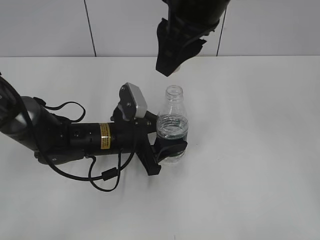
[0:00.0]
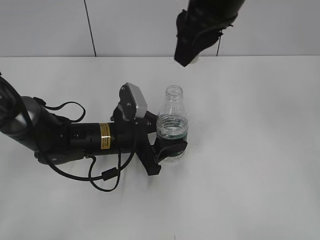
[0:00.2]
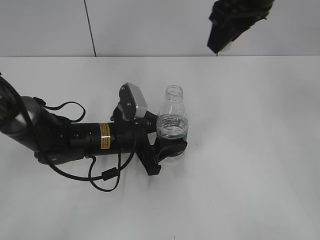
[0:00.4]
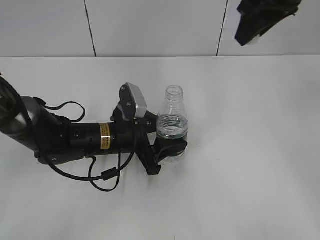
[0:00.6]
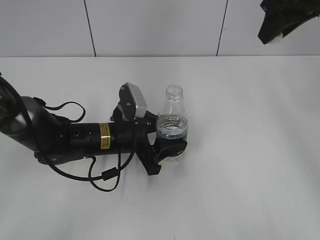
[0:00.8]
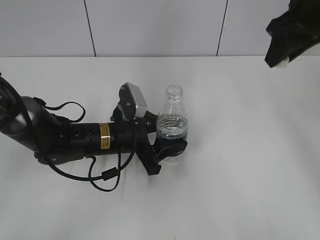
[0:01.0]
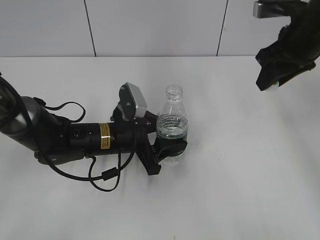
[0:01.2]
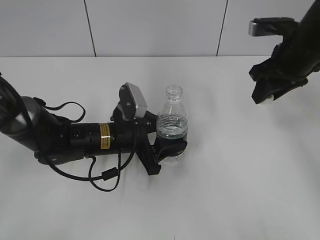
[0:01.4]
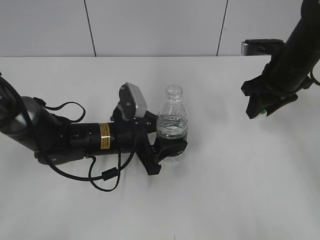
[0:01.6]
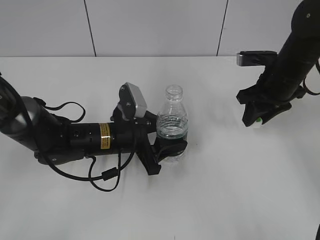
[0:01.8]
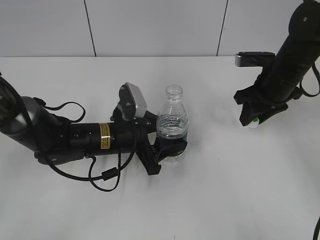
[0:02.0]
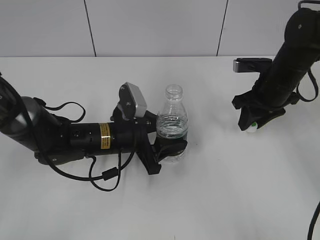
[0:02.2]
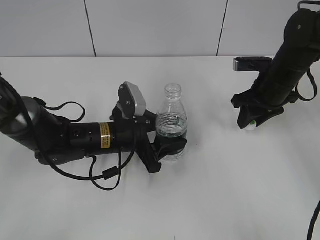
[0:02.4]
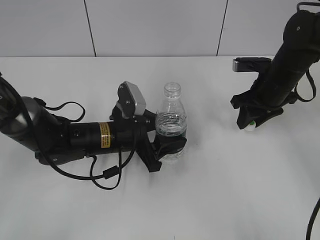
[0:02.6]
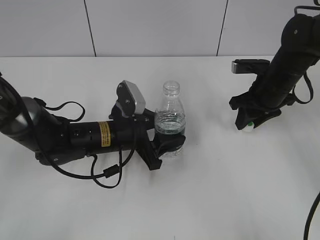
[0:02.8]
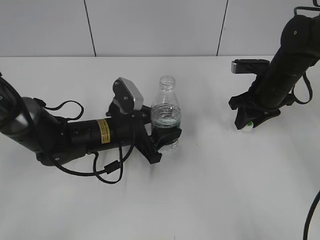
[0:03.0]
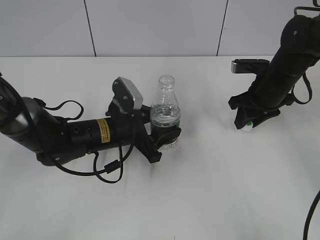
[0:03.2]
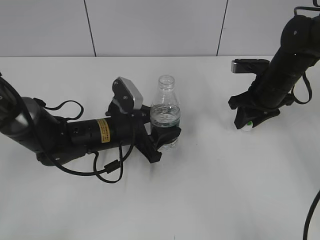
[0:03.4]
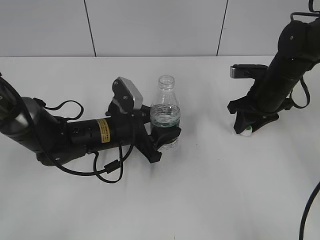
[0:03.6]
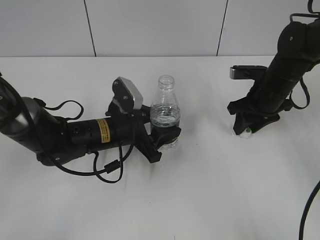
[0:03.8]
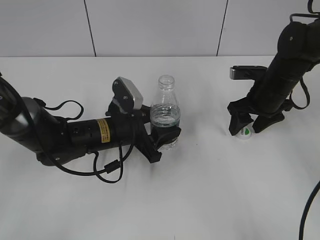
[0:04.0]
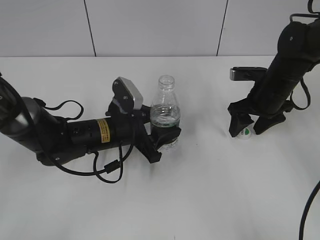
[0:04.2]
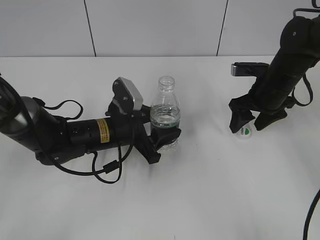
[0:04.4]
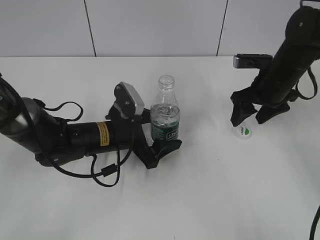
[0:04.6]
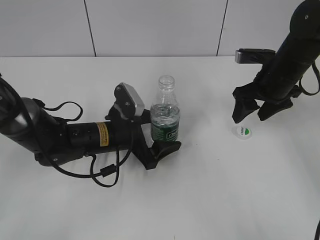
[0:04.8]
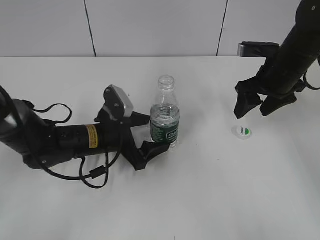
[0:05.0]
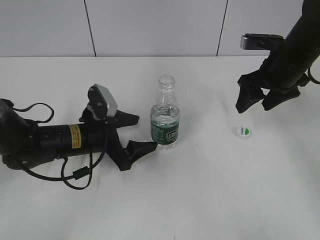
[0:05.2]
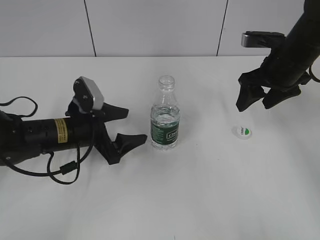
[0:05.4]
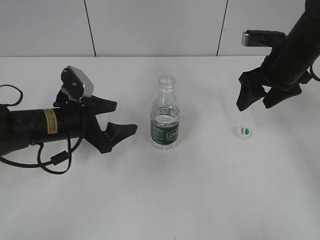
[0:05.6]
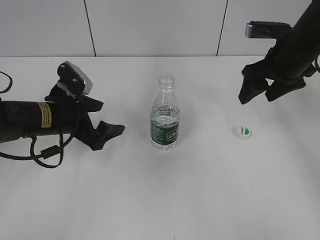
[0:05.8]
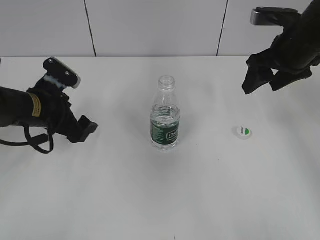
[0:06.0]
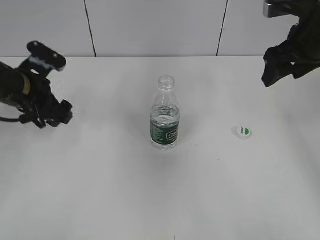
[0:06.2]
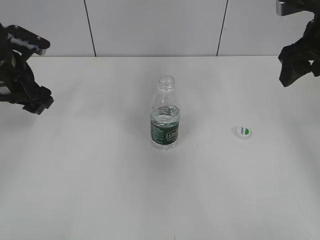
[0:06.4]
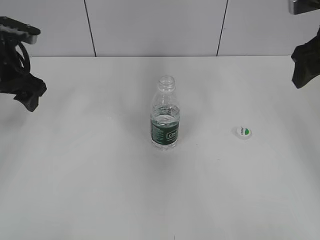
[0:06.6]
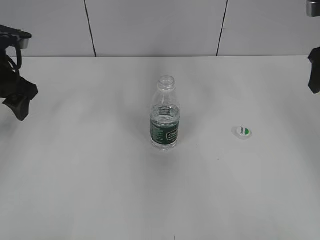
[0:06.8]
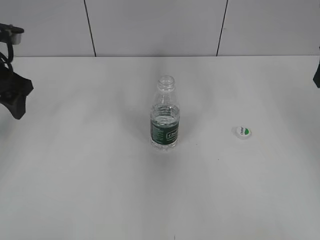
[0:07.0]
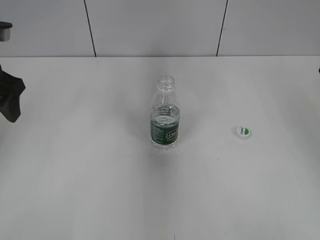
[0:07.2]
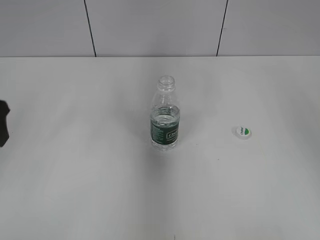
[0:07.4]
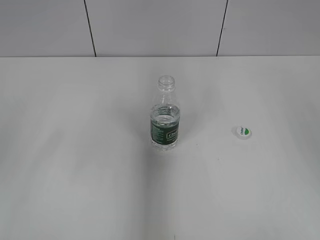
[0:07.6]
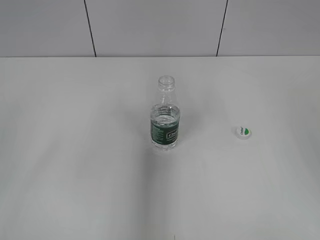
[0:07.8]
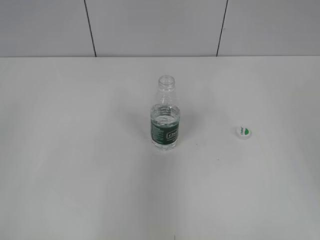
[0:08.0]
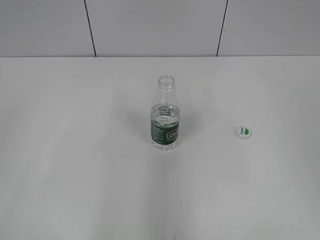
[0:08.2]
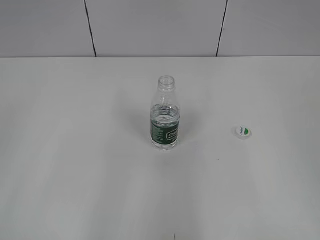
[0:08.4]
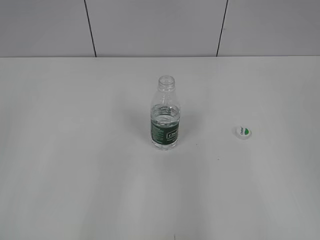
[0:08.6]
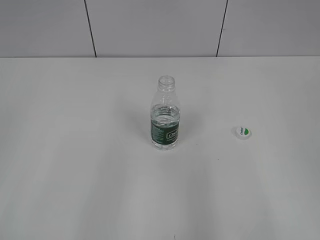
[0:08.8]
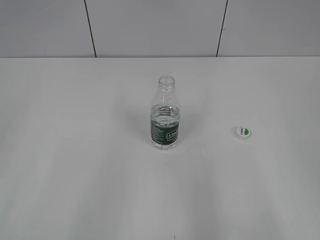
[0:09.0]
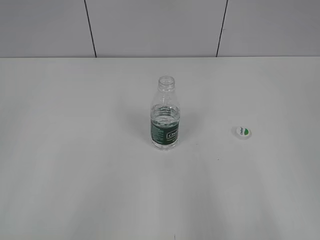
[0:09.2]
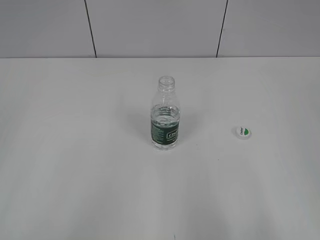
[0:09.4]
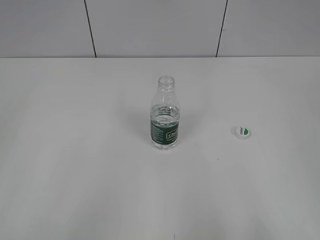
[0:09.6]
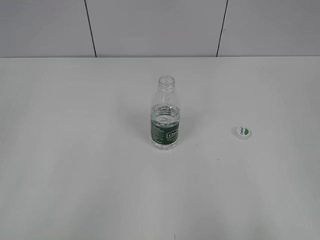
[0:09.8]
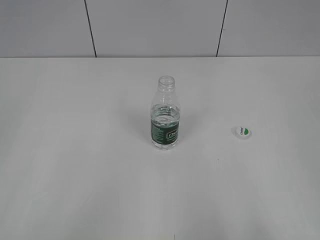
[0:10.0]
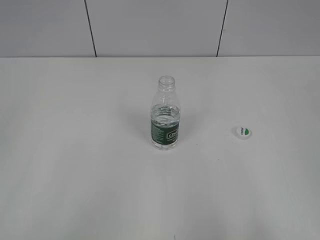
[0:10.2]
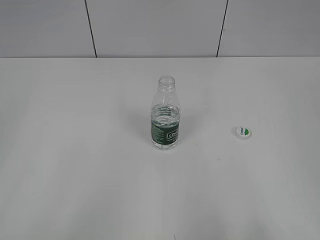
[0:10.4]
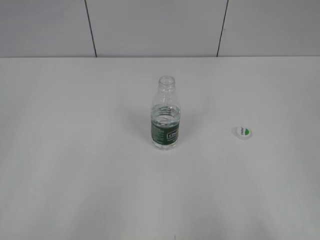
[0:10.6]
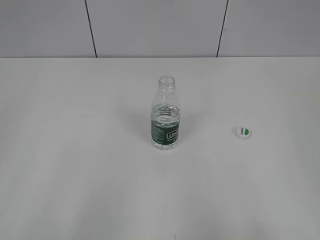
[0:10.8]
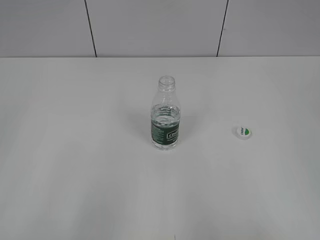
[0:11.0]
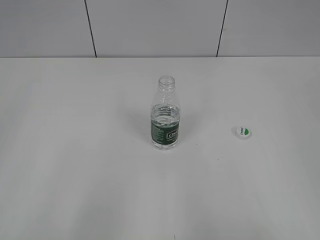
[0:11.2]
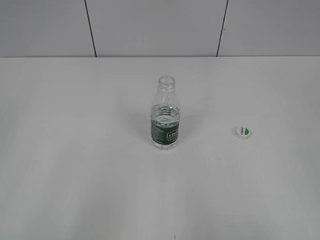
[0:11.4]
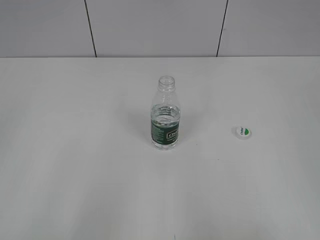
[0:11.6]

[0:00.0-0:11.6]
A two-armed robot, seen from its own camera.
0:00.0 to 0:01.4: The right gripper heads to the right, downward and forward, covering approximately 20 cm.
0:01.4 to 0:02.8: The right gripper goes roughly 10 cm downward.
0:02.8 to 0:04.4: The right gripper opens up.
0:04.4 to 0:05.8: The right gripper goes roughly 10 cm upward, while the left gripper moves to the left, about 10 cm, and opens up.
0:05.8 to 0:07.2: The right gripper heads upward, to the right and backward, covering approximately 15 cm. The left gripper shifts some 15 cm upward and to the left.
0:07.2 to 0:08.8: The grippers both shift backward by roughly 25 cm.

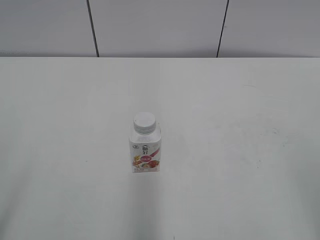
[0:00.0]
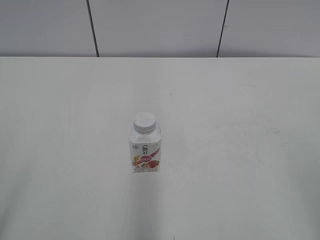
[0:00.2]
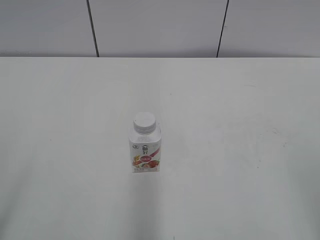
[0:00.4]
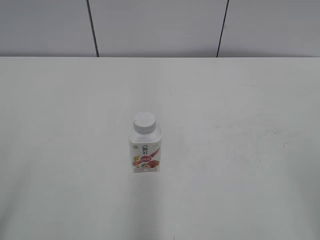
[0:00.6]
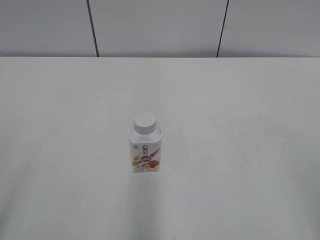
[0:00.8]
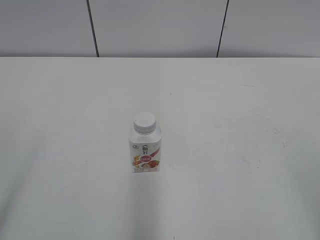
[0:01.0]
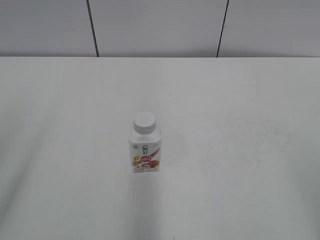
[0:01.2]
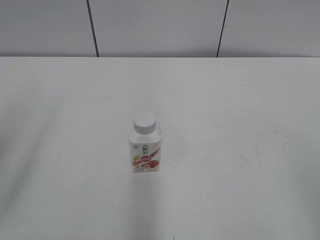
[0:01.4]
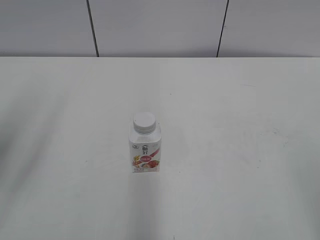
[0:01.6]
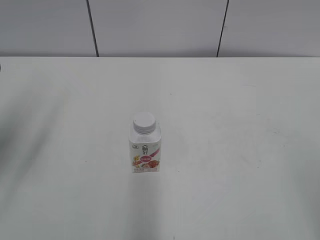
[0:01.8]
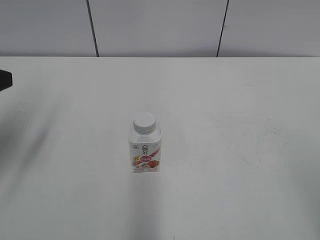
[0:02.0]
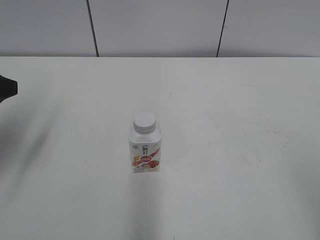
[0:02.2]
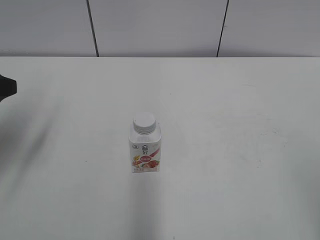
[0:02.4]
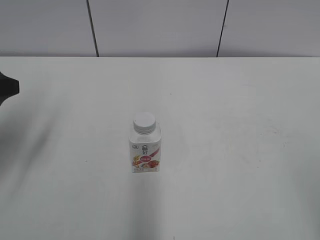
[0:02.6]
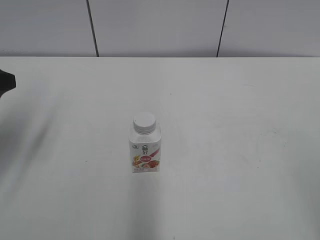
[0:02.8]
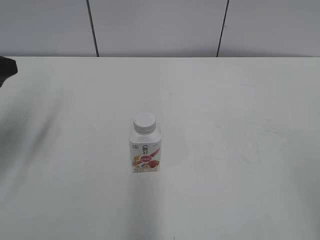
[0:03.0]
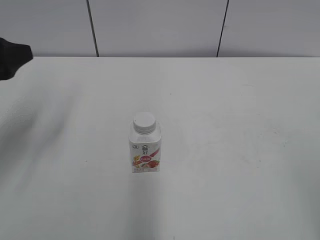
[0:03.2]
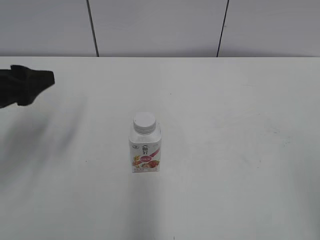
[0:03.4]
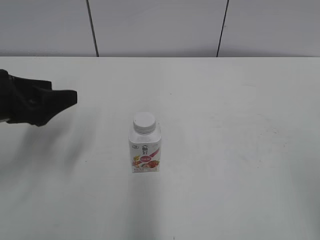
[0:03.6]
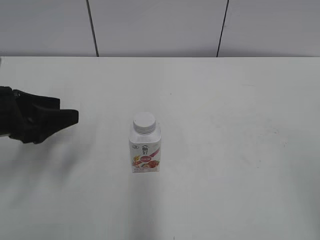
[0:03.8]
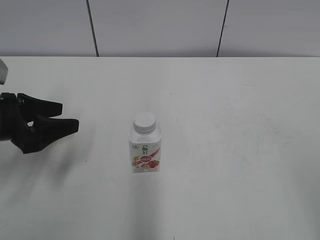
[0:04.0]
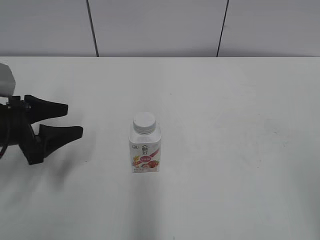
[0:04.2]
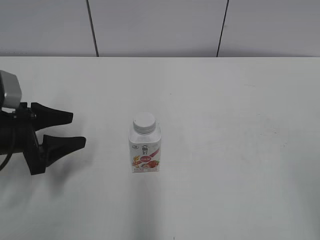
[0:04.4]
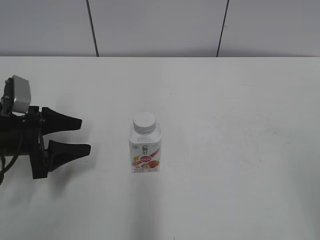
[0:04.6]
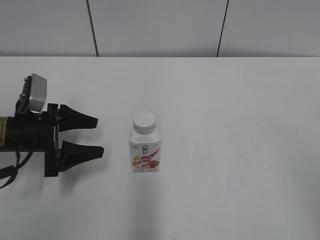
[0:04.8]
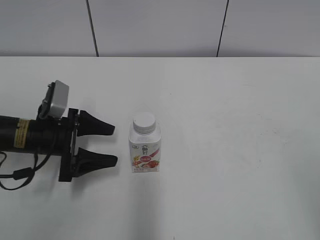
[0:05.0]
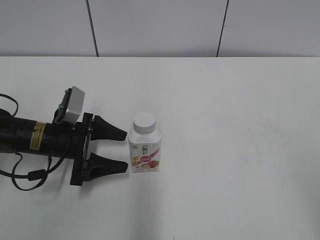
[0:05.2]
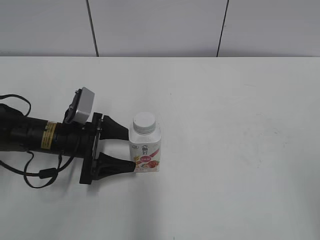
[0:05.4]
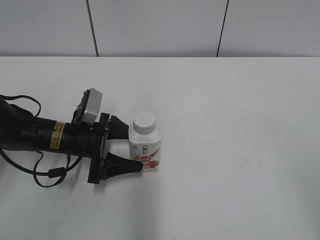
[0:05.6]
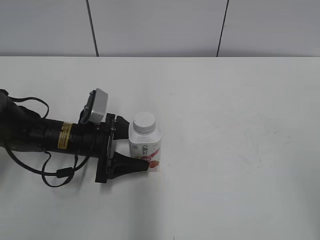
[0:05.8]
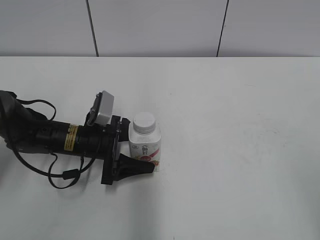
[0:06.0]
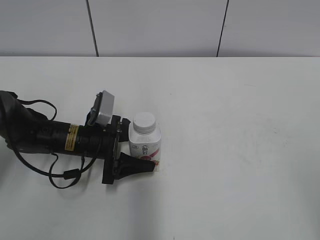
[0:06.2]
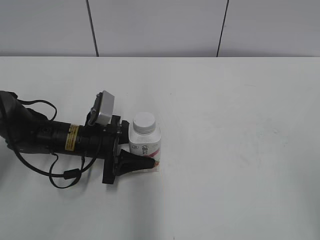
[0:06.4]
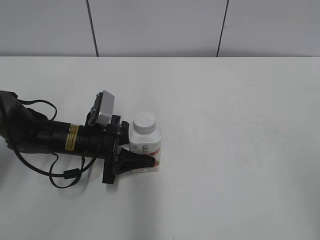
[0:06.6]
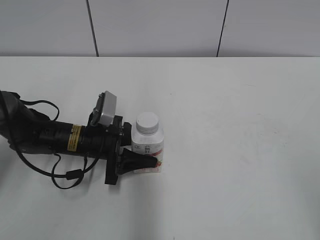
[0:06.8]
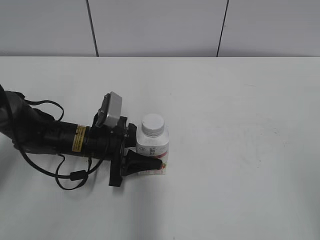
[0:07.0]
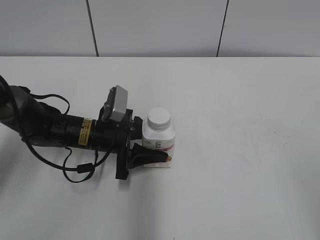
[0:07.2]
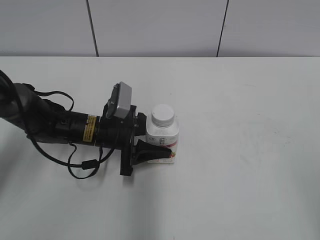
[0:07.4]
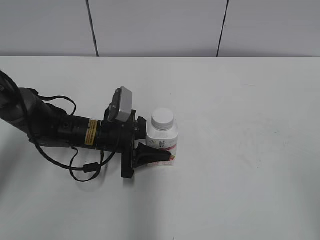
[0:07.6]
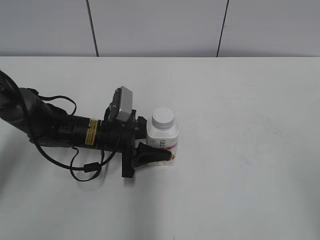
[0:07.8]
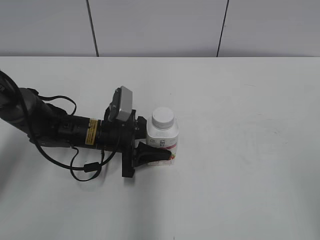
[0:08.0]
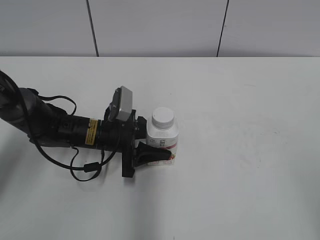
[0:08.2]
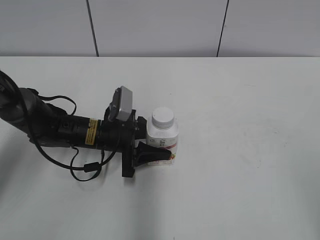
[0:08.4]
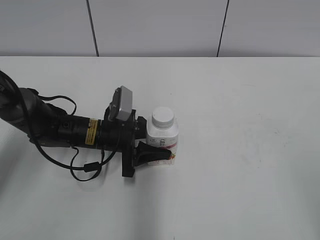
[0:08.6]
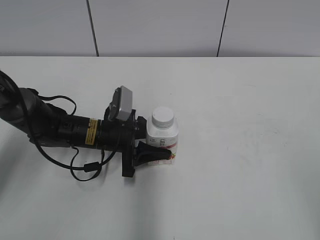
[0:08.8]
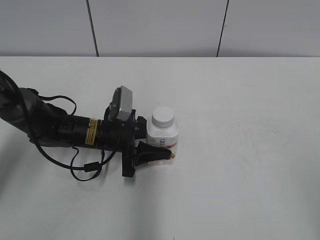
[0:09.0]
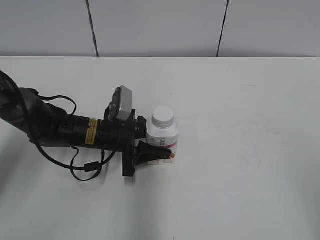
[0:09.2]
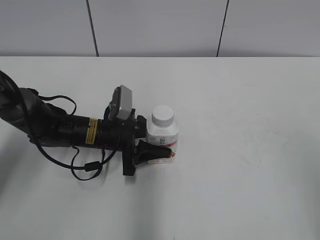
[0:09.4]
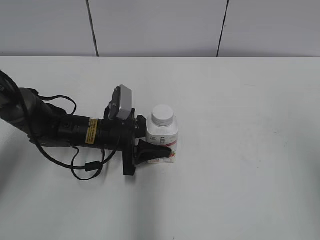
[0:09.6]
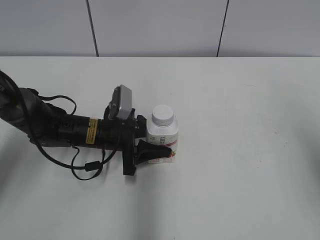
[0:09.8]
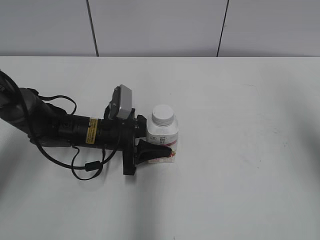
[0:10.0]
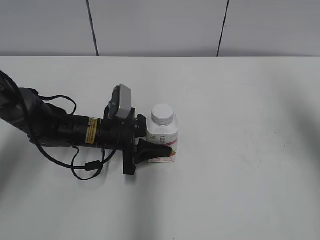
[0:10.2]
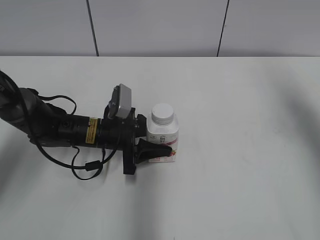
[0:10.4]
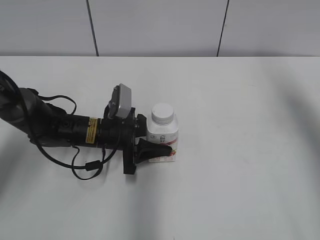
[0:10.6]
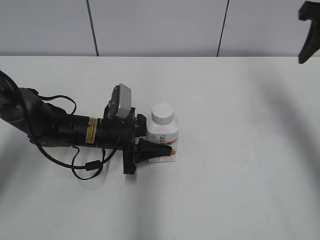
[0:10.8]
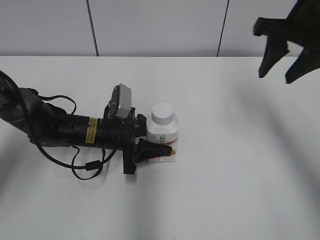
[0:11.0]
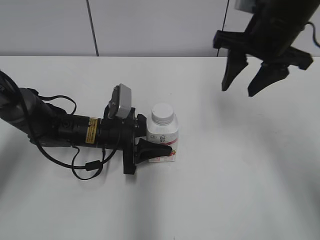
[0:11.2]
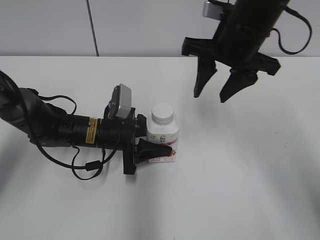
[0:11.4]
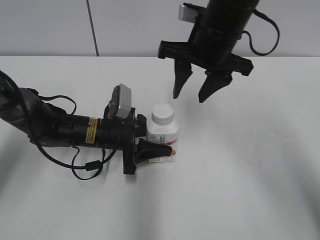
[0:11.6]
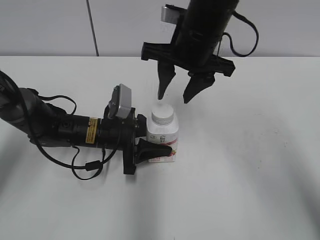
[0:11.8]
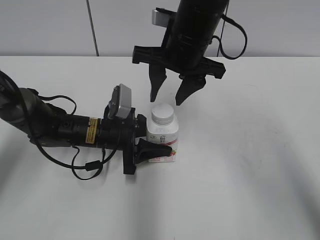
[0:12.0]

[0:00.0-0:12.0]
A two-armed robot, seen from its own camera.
Step, 0:00.0 to 0:06.4: Grab the Yili Changqing with the left hand.
Step, 0:06.6 to 0:08.4: Move the Yili Changqing from left to right.
0:01.6 to 0:03.0: The left gripper heads forward and downward, covering some 10 cm.
0:03.0 to 0:04.4: The left gripper is displaced downward by roughly 10 cm.
0:04.4 to 0:06.0: The left gripper goes some 15 cm to the right, downward and forward.
0:06.0 to 0:07.6: The left gripper closes.
0:07.6 to 0:09.0: Neither gripper changes place.
0:09.0 to 0:10.4: The right gripper is displaced forward by some 30 cm.
0:10.4 to 0:12.0: The right gripper shifts some 25 cm to the left.
